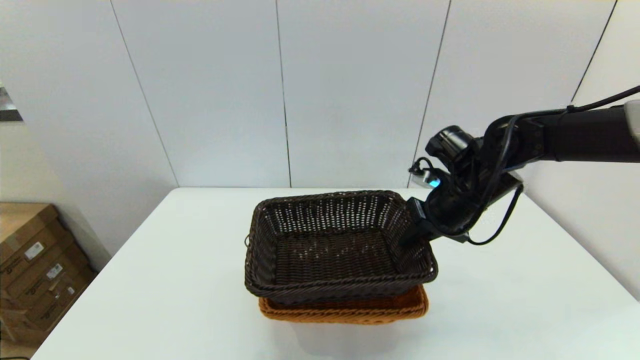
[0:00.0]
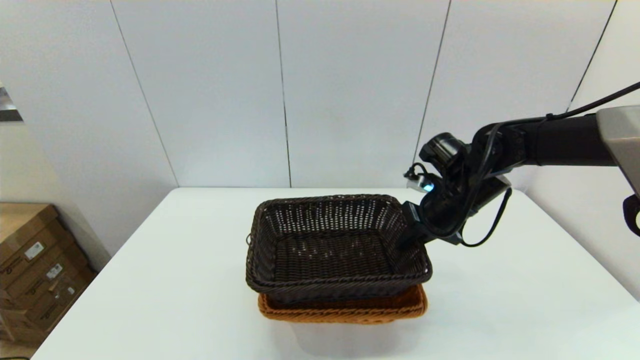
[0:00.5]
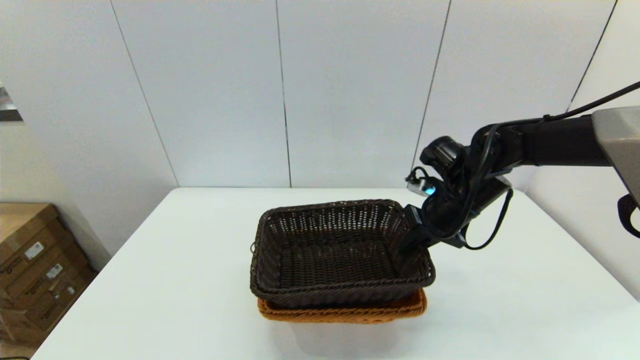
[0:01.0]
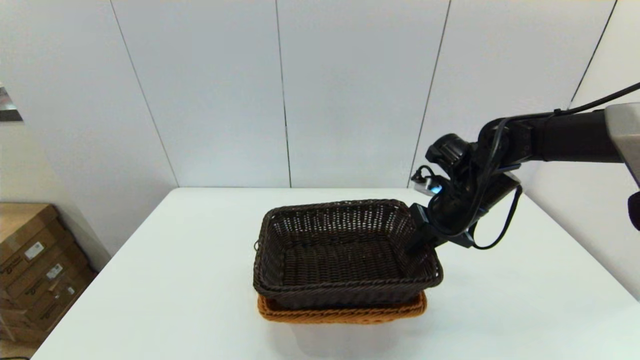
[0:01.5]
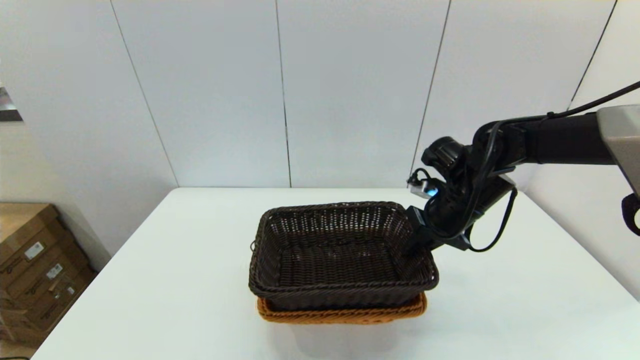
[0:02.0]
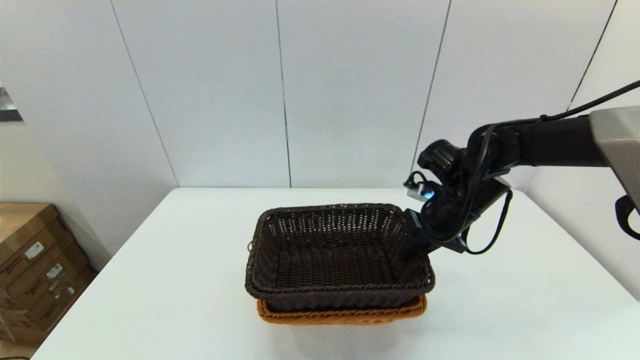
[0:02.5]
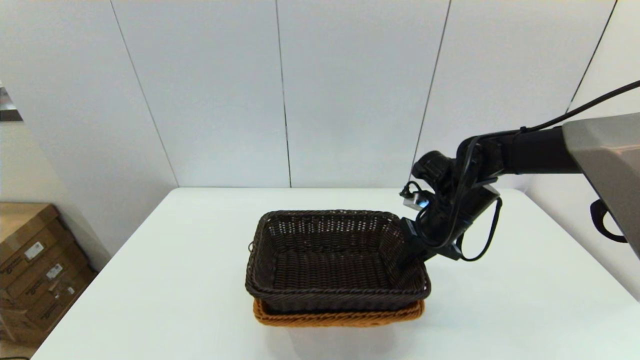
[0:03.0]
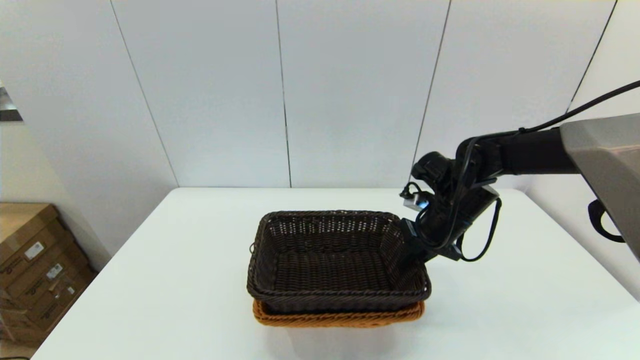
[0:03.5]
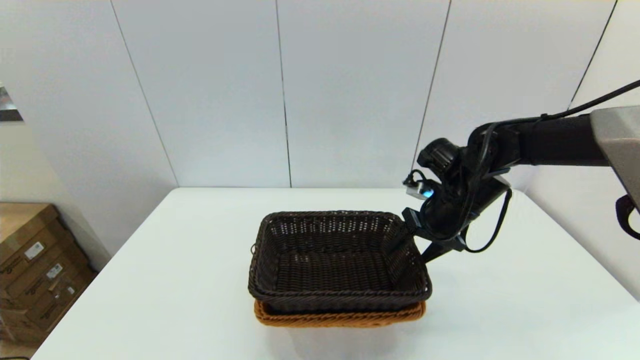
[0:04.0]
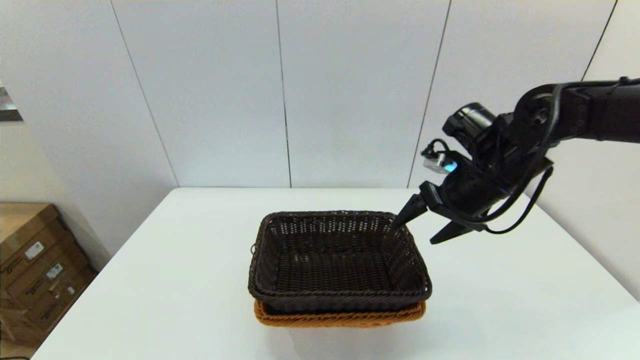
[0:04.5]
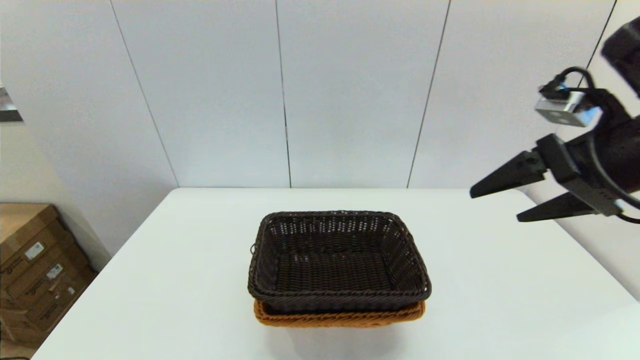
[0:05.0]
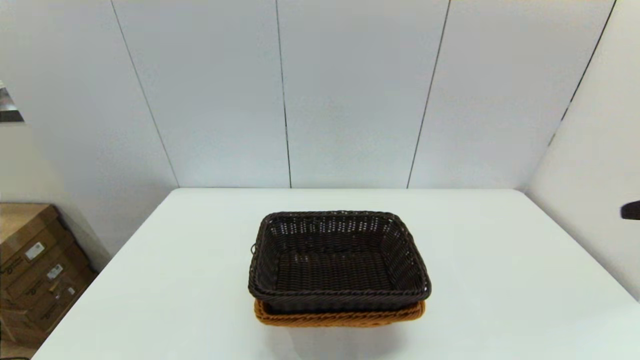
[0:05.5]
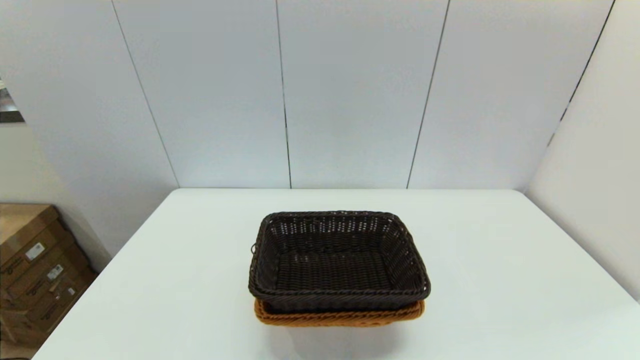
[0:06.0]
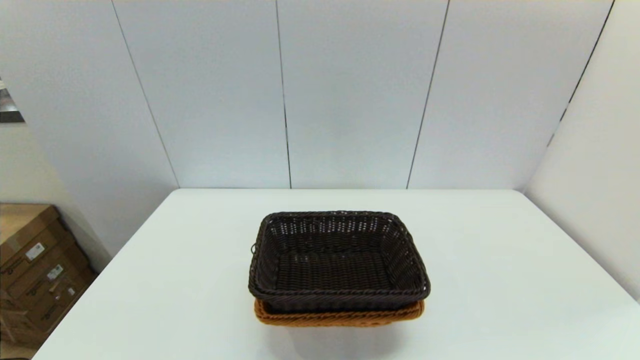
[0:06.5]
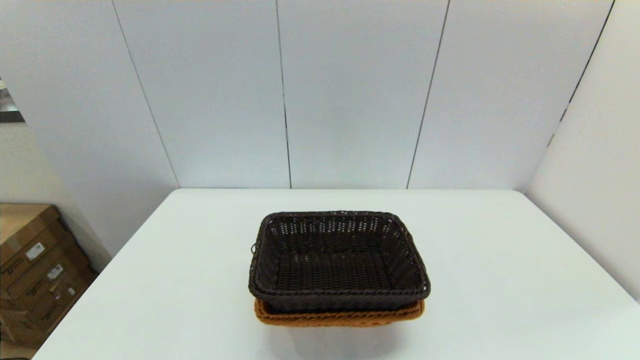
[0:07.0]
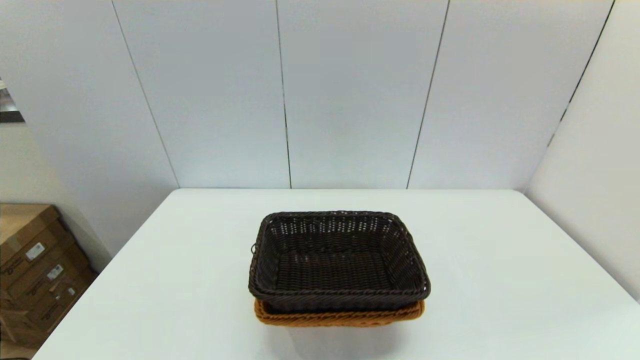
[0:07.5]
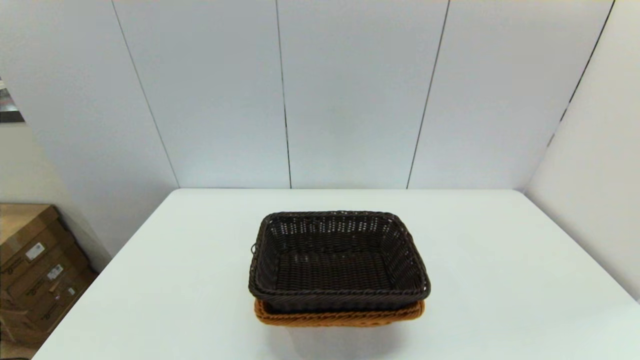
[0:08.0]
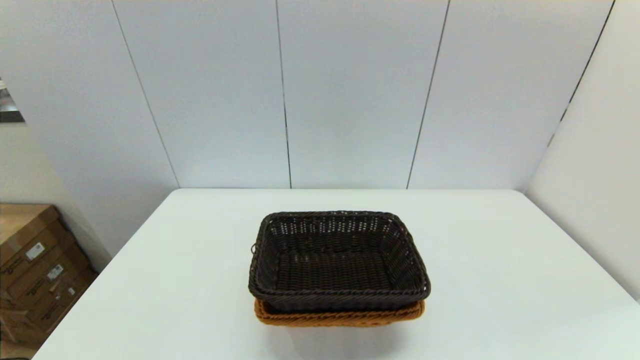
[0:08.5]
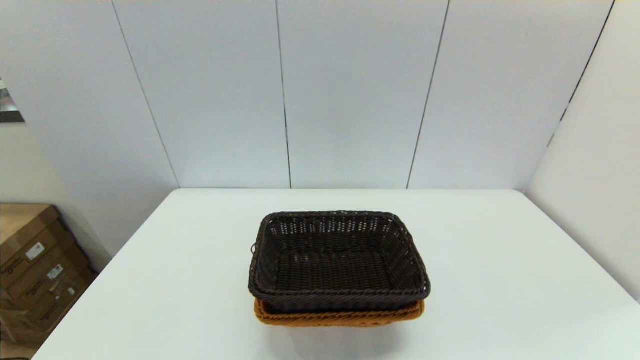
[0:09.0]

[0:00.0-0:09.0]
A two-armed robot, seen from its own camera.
Task of the whole recording: stack a basket on top of another basket.
Step, 0:00.0 to 0:03.5: Place the dark basket into the light color basket with the right gripper.
0:00.0 to 0:02.0: There are only small adjustments of the grippers.
0:02.0 to 0:04.5: The right gripper moves upward, some 5 cm, and opens.
0:04.5 to 0:07.0: The right gripper heads backward, covering some 40 cm.
